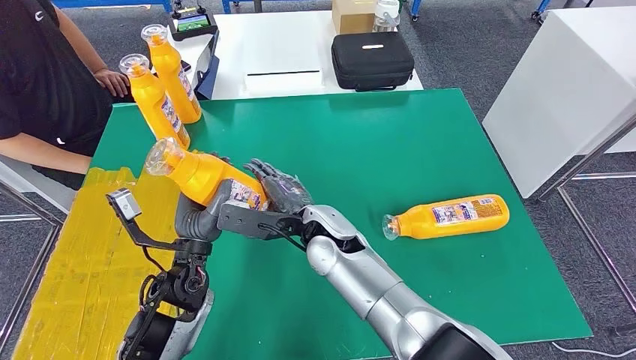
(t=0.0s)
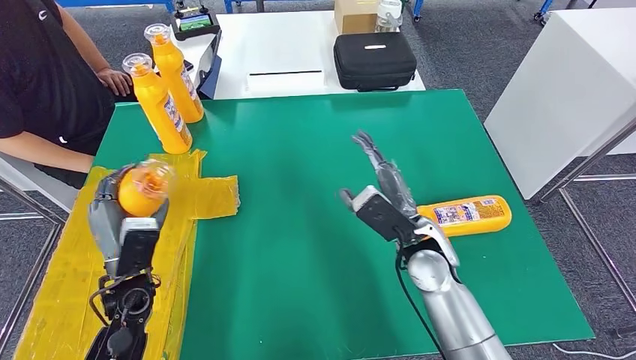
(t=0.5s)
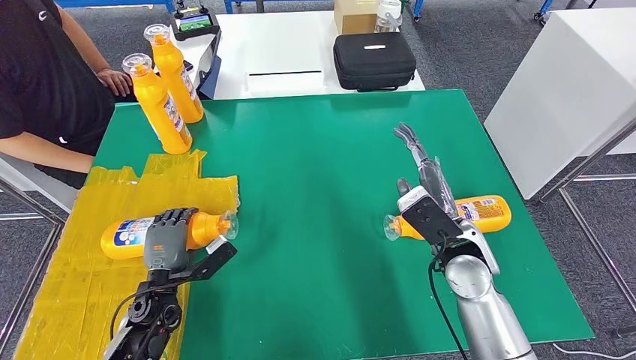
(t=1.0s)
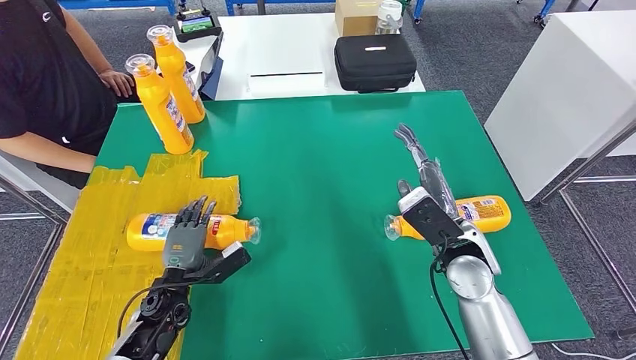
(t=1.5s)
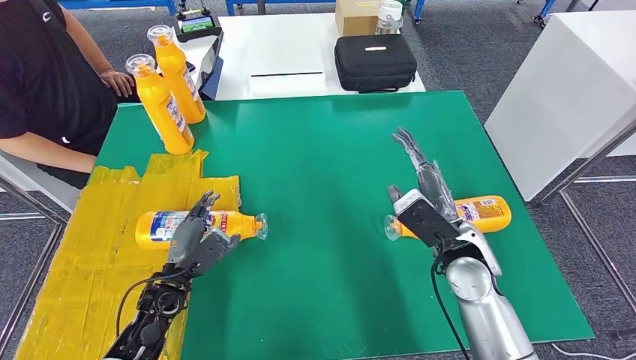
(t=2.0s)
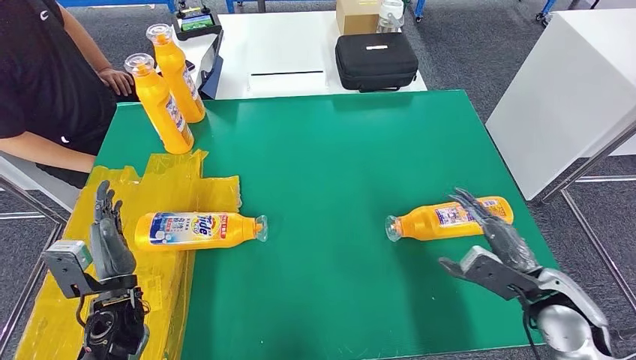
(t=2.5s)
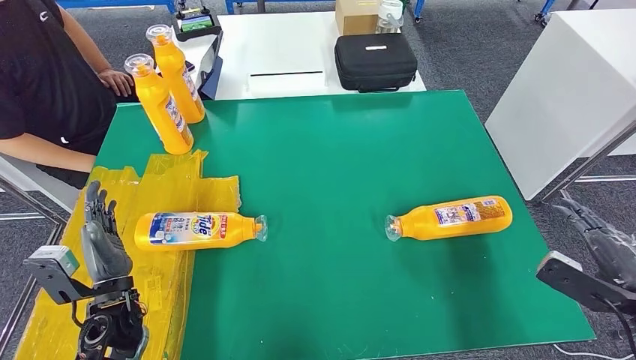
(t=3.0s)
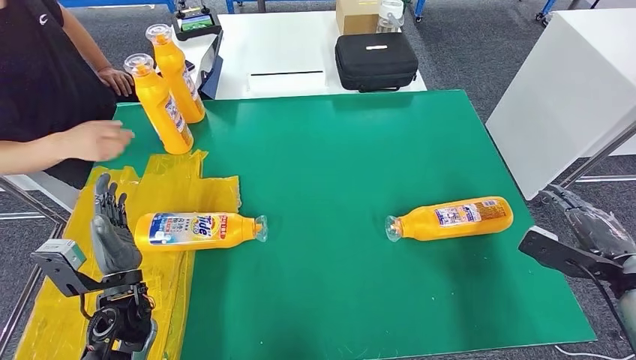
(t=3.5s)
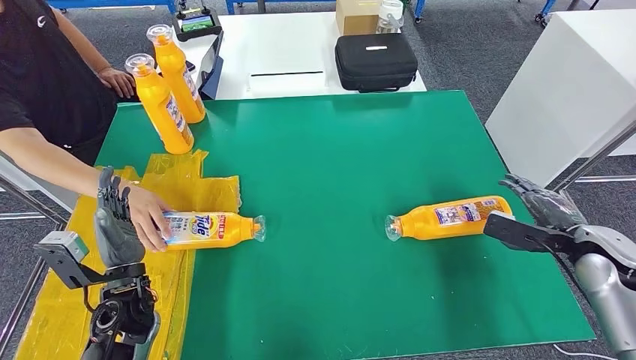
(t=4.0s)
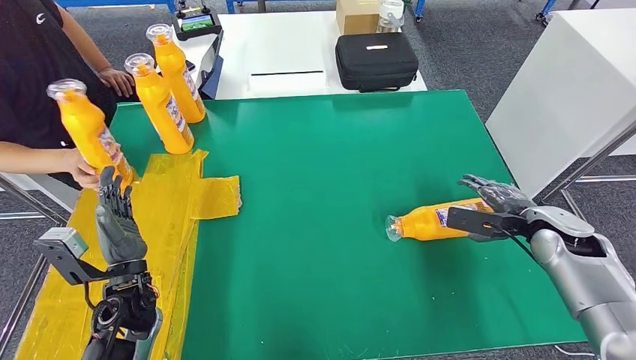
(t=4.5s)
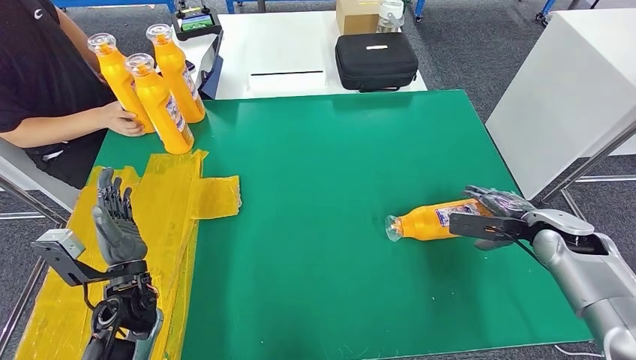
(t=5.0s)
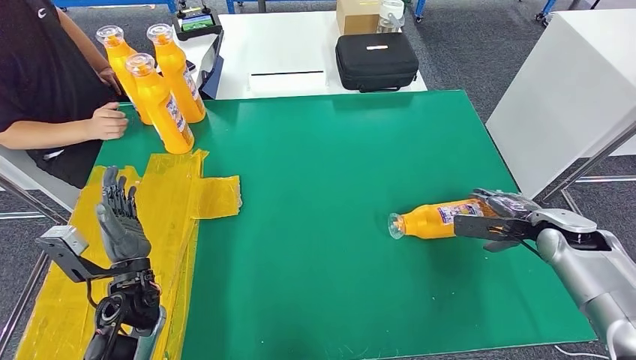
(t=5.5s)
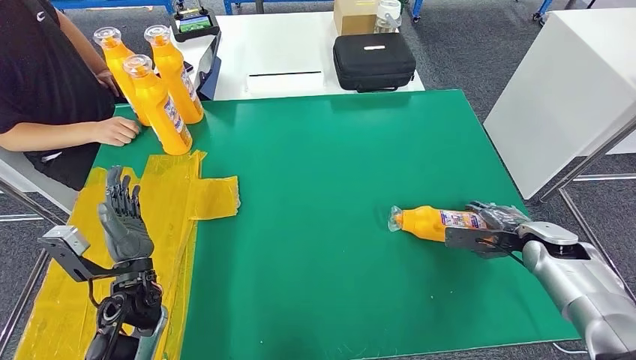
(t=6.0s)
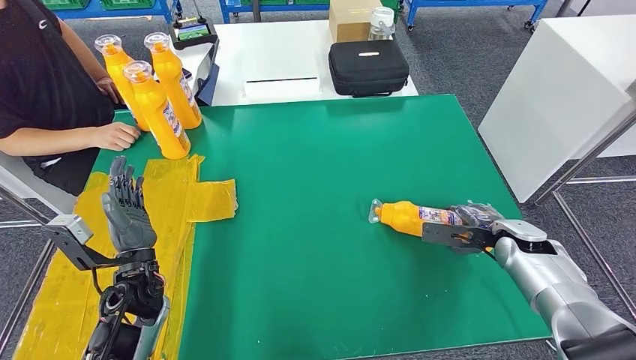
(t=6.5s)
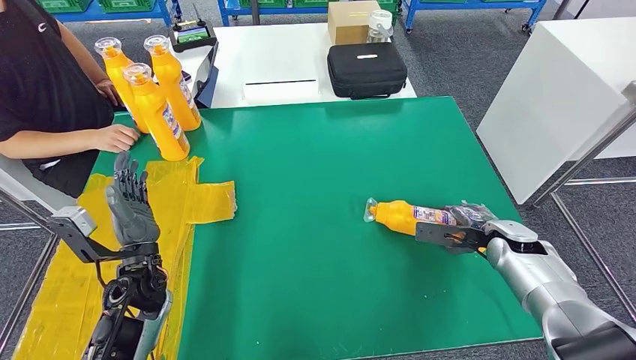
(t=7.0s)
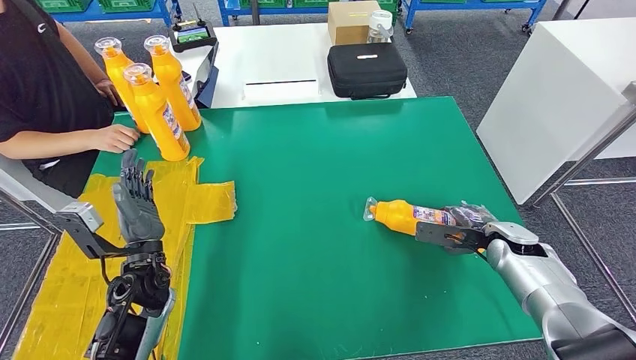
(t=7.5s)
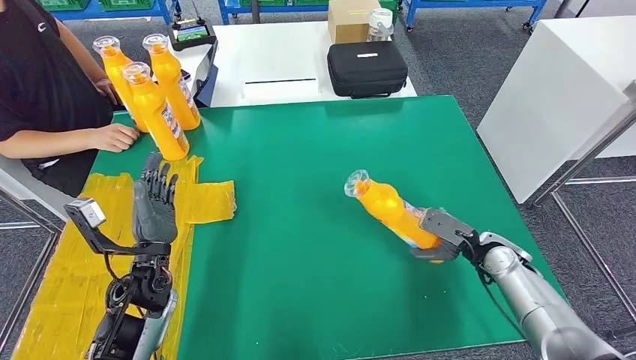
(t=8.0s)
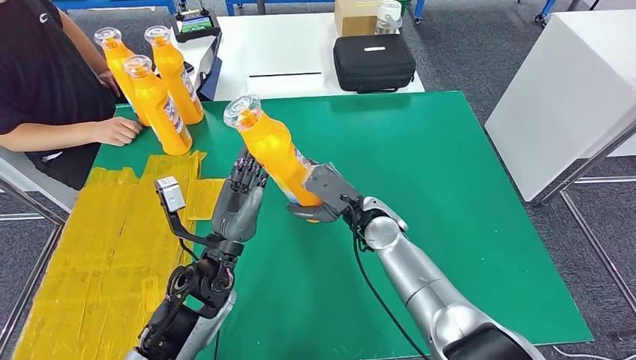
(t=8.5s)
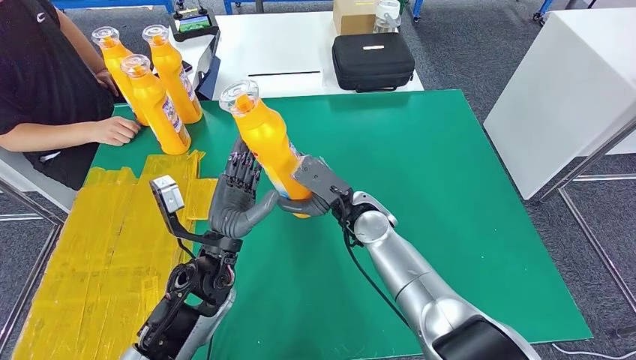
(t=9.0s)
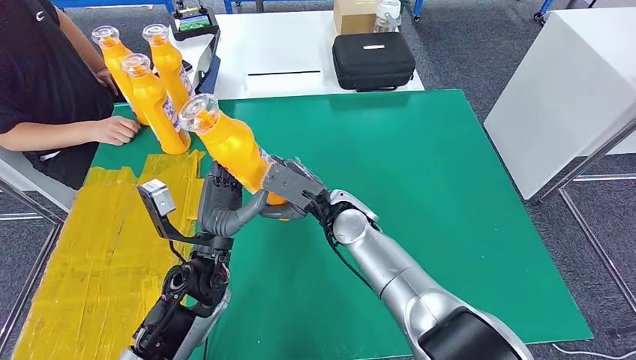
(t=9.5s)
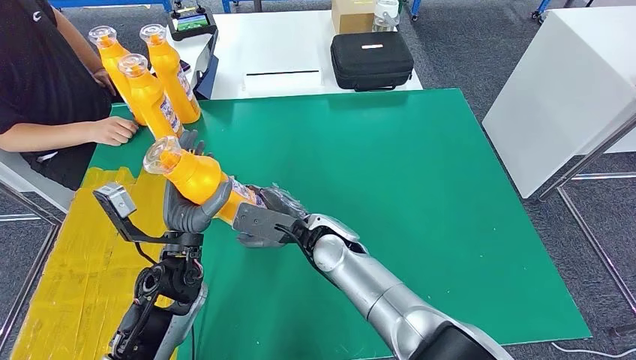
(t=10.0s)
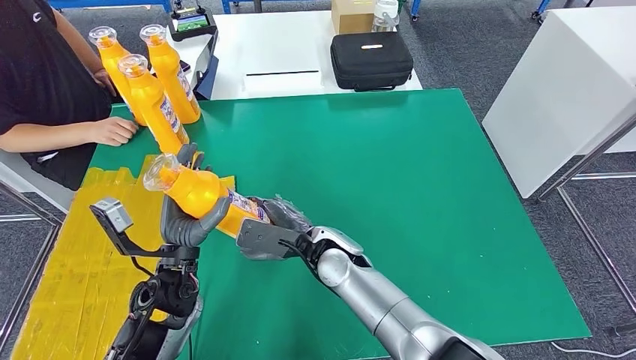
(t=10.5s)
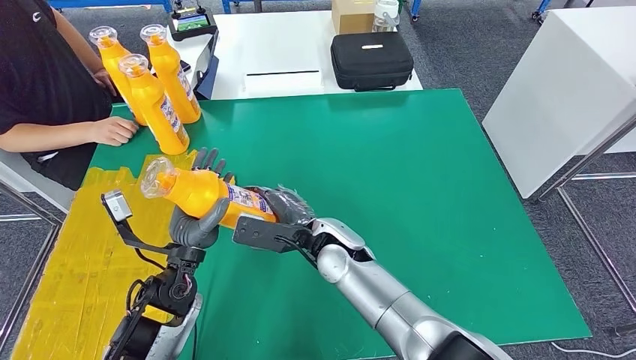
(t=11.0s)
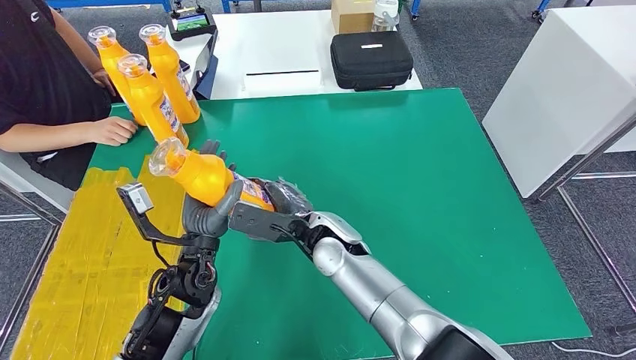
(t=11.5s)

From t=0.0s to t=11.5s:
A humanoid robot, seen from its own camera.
Step, from t=0.0s to t=2.0s: Flip the fast-moving consumer goods bottle to the front side.
Step, from t=6.5s to t=8.0s: Pick up the fast-moving consumer goods bottle from the table.
From t=4.0s to t=6.0s: The right hand heads downward, covering about 5 cm.

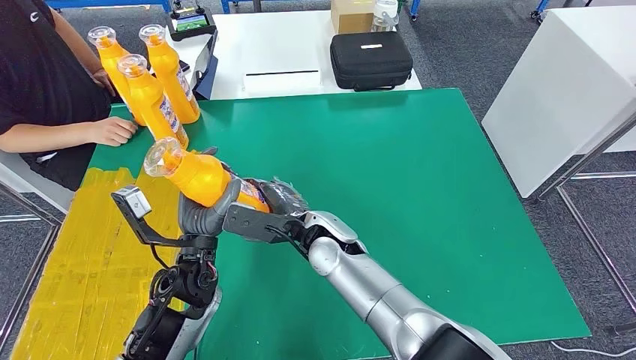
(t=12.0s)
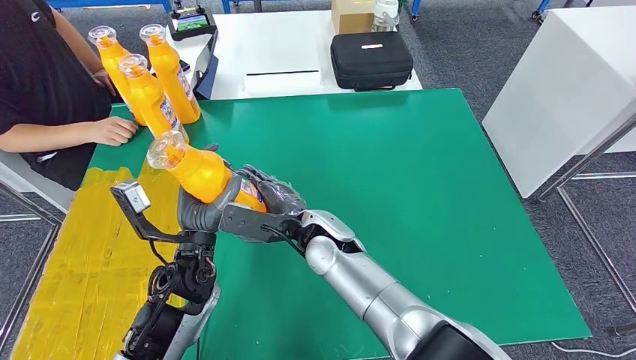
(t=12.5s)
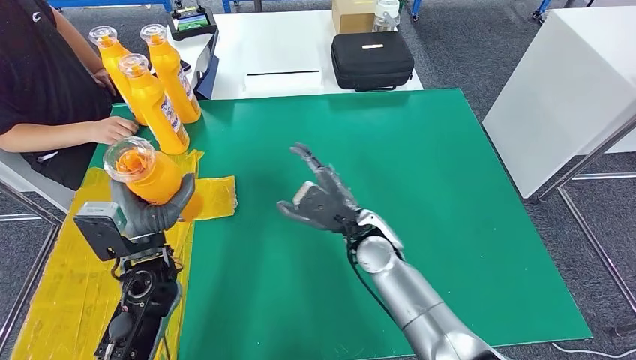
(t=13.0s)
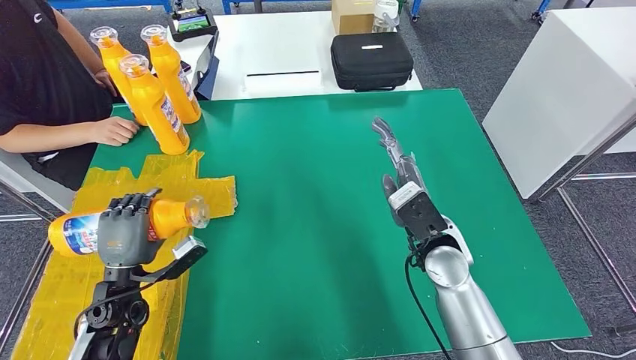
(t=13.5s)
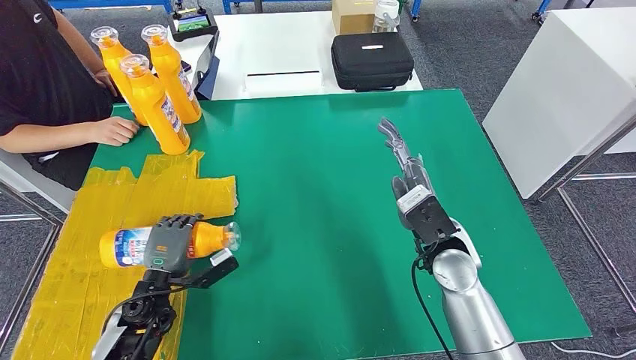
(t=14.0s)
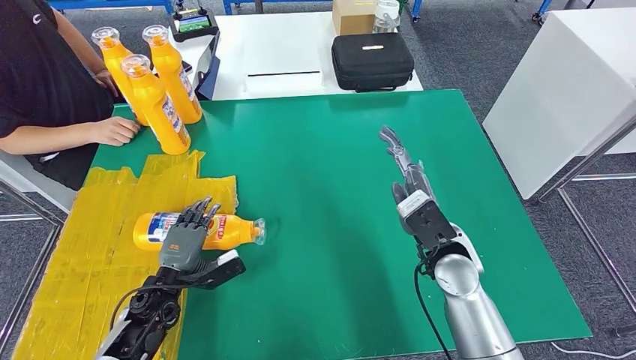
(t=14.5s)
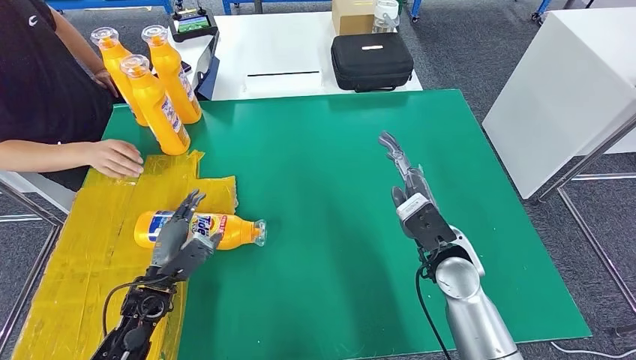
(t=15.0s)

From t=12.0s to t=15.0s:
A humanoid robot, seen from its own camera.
Step, from t=12.0s to t=15.0s: Flip the fast-moving consumer goods bottle to the front side.
From t=13.5s to t=15.0s: The left hand changes place by approximately 5 cm.
